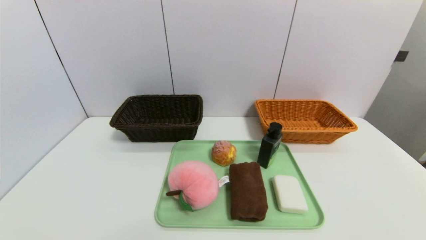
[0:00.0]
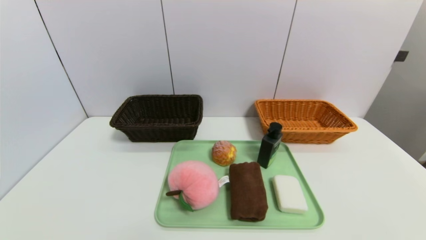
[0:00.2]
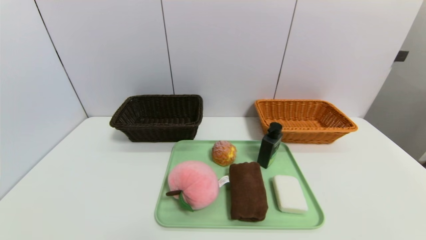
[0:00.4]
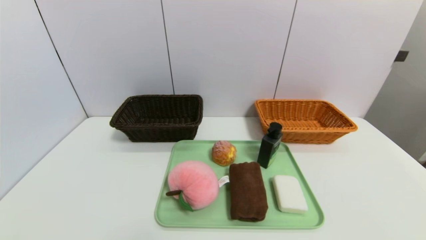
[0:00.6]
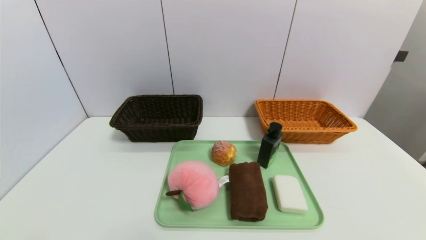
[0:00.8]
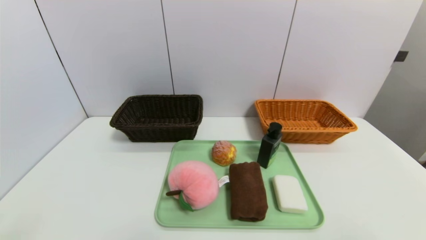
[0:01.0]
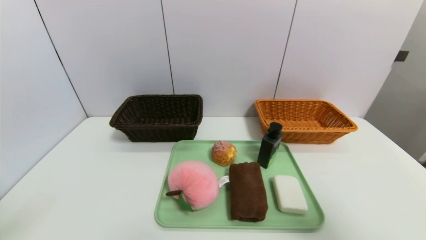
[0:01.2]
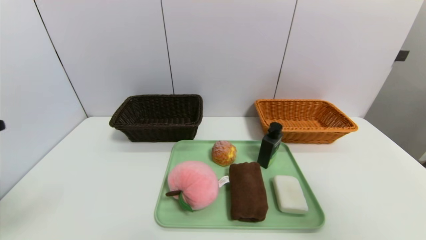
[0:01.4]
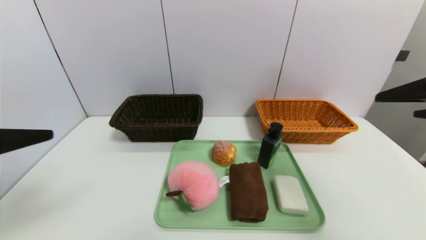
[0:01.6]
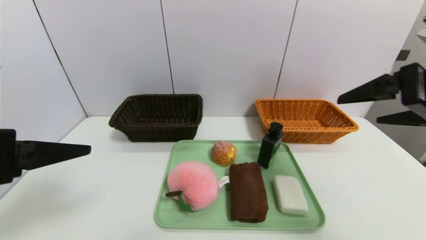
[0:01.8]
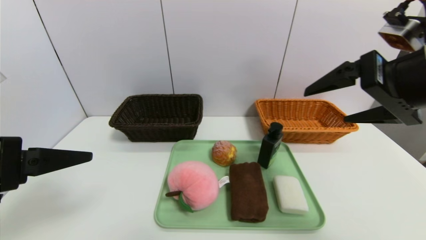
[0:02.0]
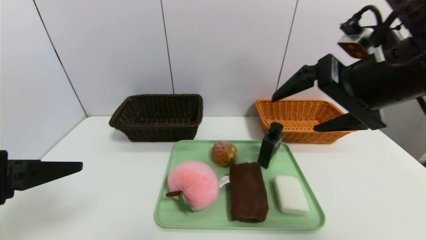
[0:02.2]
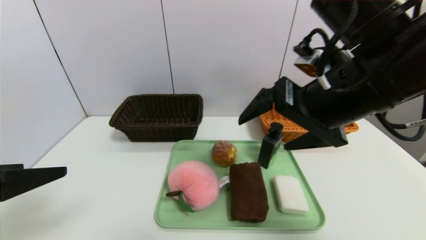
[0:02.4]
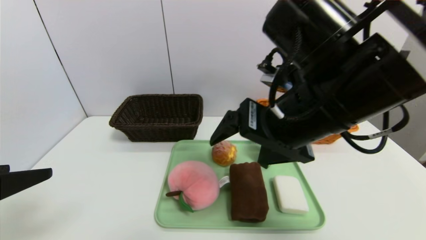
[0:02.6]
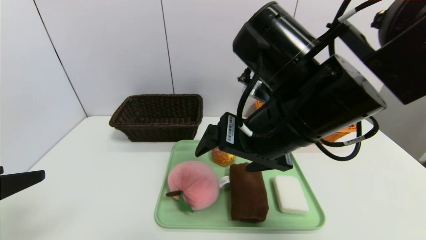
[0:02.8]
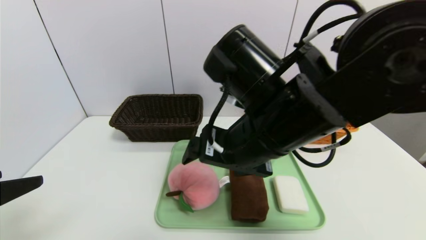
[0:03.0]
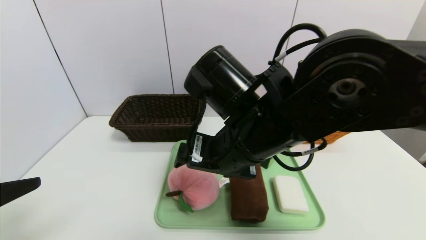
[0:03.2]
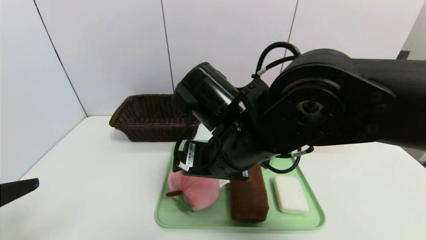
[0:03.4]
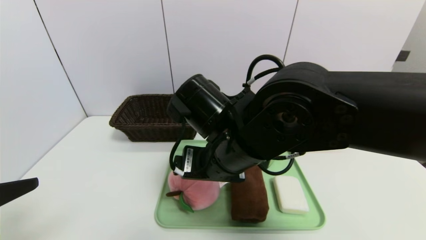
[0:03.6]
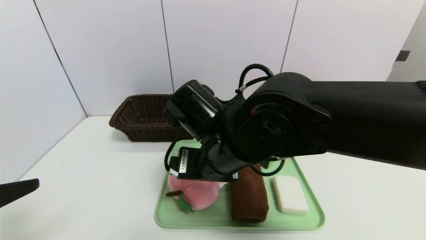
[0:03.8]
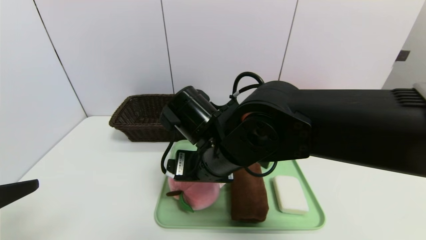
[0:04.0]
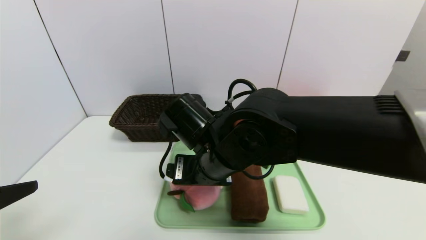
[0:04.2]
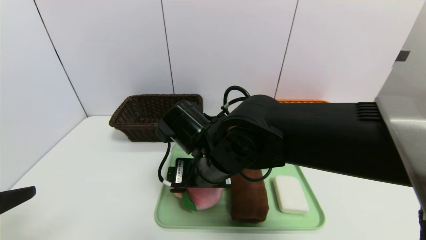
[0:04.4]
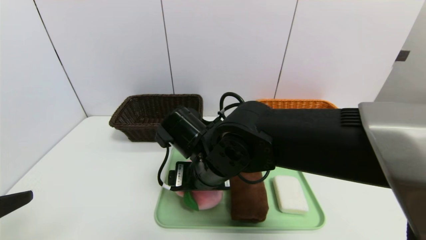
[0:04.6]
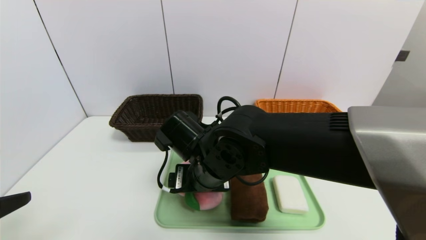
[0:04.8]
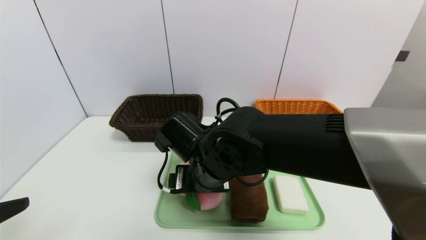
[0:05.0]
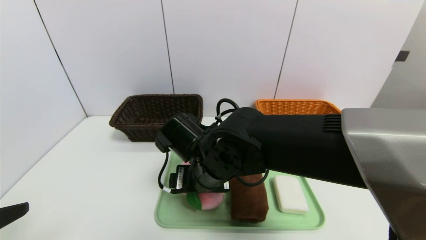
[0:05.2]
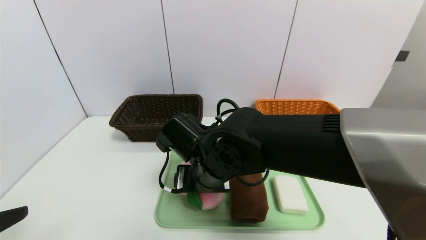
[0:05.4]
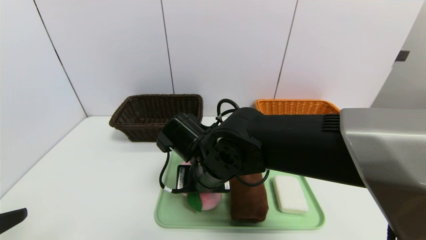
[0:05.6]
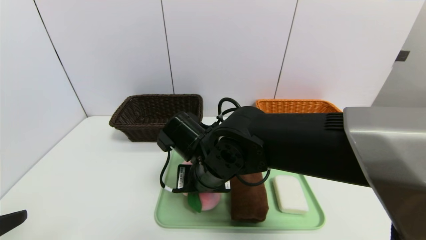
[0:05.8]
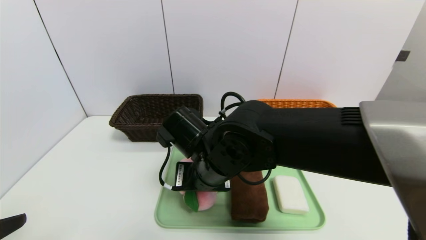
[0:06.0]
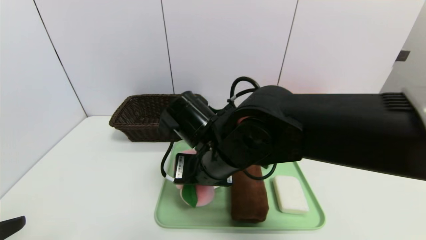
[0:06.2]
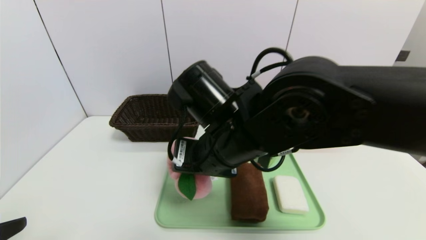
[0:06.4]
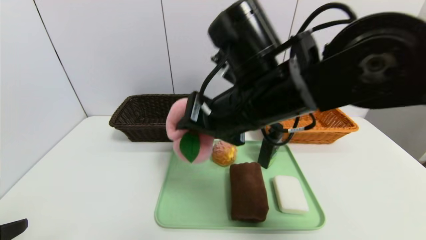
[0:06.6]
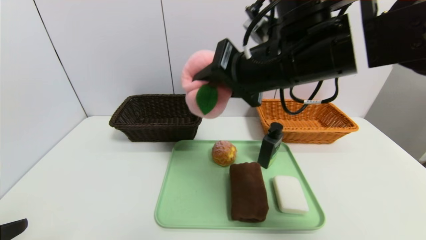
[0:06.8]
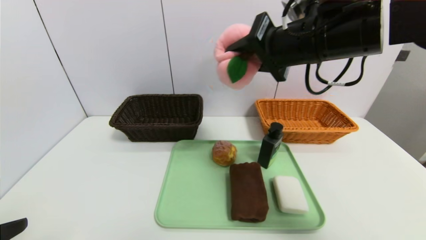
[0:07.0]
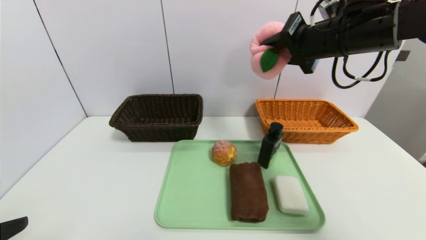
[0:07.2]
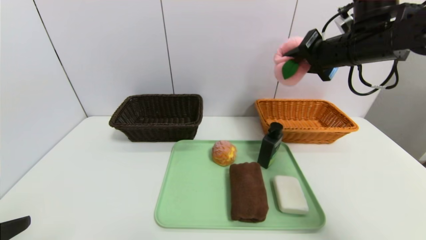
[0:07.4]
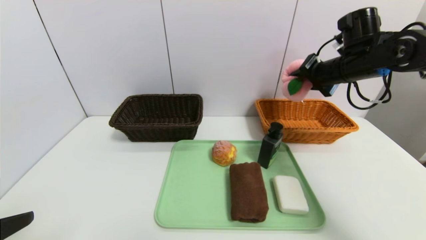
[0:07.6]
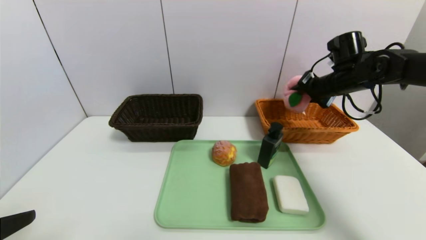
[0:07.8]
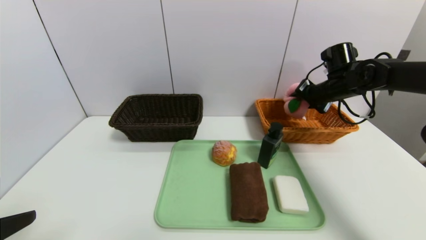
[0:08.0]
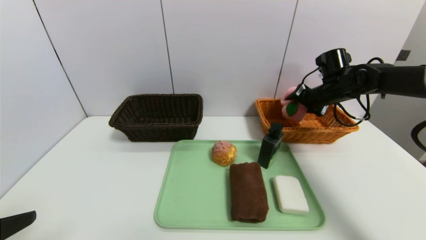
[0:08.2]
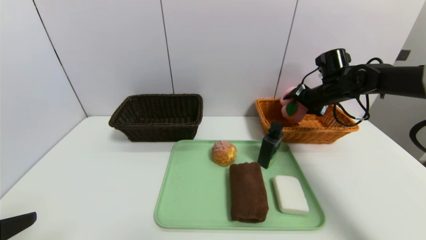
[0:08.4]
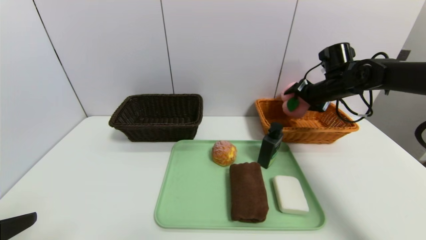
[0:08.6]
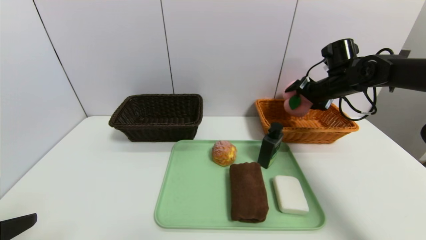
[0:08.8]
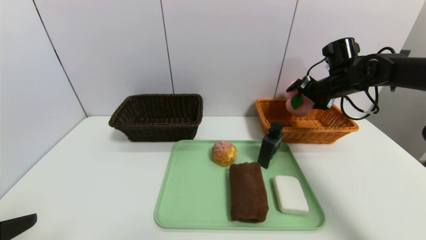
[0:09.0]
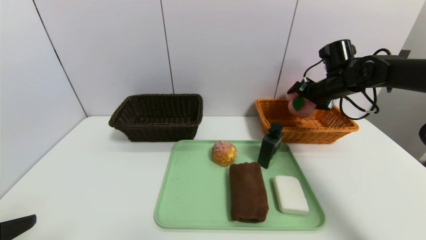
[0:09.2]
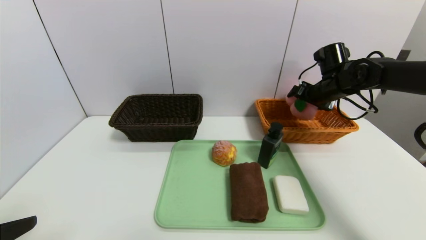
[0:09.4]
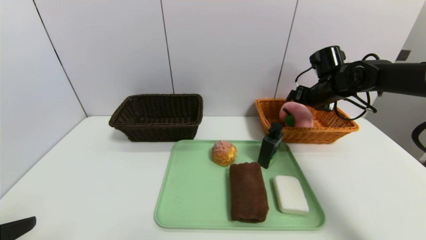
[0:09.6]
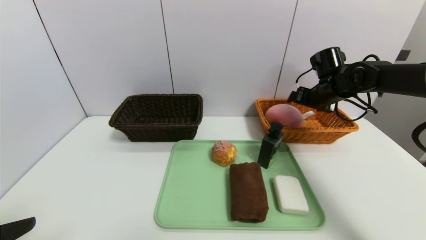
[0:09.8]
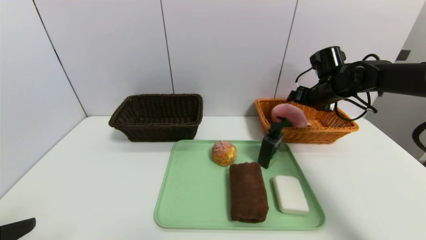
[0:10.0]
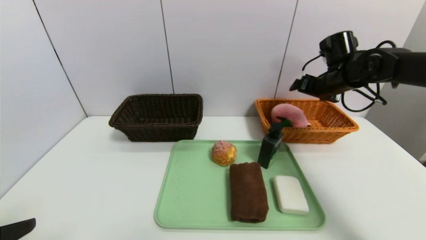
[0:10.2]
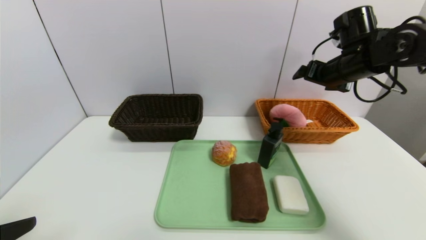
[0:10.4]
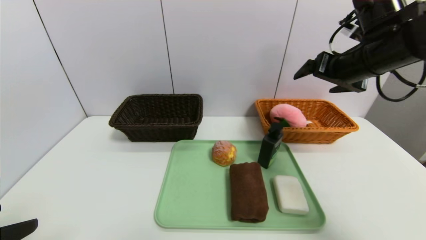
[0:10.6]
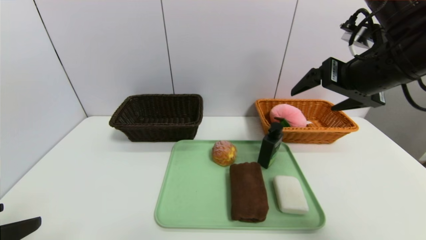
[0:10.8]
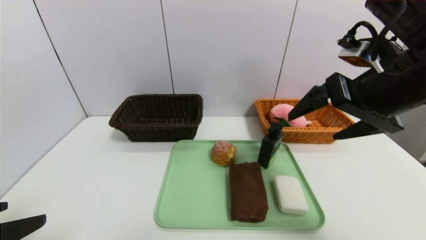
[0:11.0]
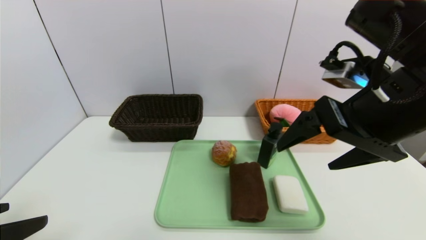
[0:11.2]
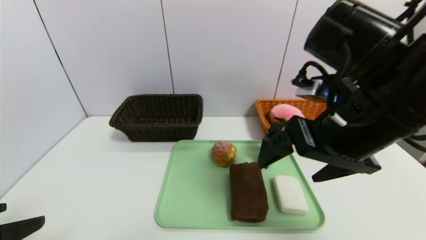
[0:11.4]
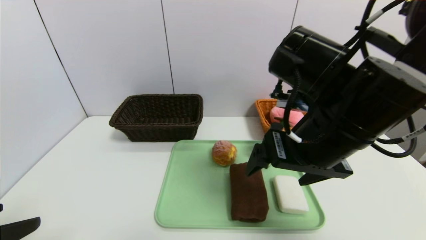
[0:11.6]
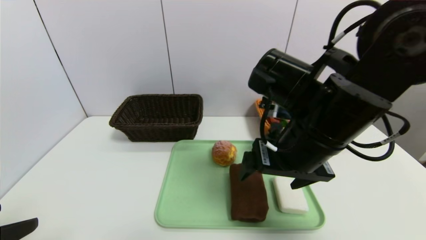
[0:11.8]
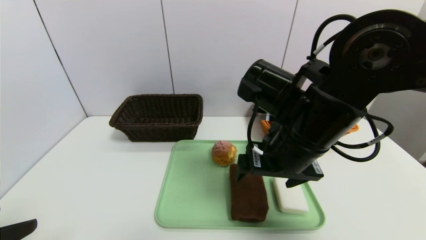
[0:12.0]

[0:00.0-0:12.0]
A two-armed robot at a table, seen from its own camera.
Task of the whole recording: place the food in the right basket with the right gripper, and place the non food items in the left basket with the left gripper.
Step, 0:00.0 to 0:10.2: Grasp the peach doll and put it in the right basket.
0:00.0 to 0:01.6: The two grippers go approximately 30 cm upward and forward.
0:01.6 to 0:03.0: The right gripper shifts some 25 cm to the left, while the left gripper shifts by about 5 cm.
0:03.0 to 0:04.4: The right gripper heads downward and to the left, covering about 10 cm.
0:04.4 to 0:06.0: The right gripper closes its fingers.
0:06.0 to 0:07.6: The right gripper goes approximately 35 cm to the right and forward.
0:07.6 to 0:09.0: The right gripper moves some 5 cm, and opens up.
0:09.0 to 0:10.4: The right gripper shifts roughly 10 cm upward and backward.
0:10.4 to 0:12.0: The right gripper travels to the left and backward by roughly 20 cm.

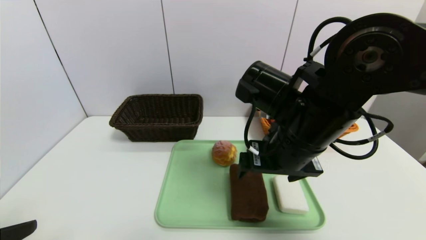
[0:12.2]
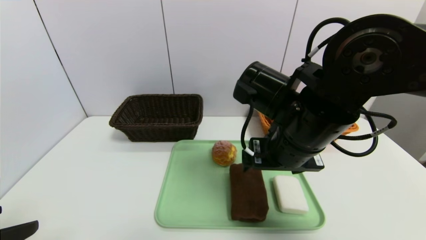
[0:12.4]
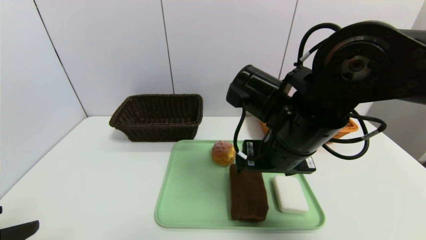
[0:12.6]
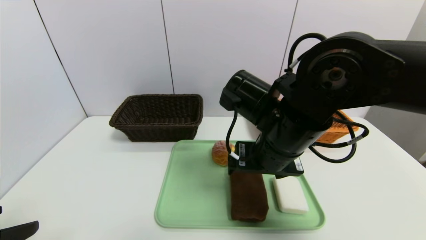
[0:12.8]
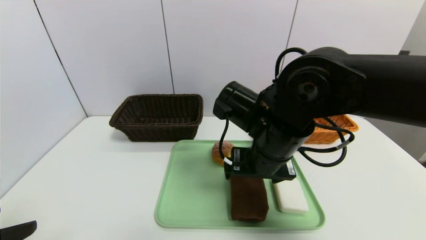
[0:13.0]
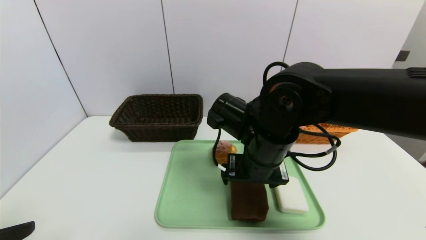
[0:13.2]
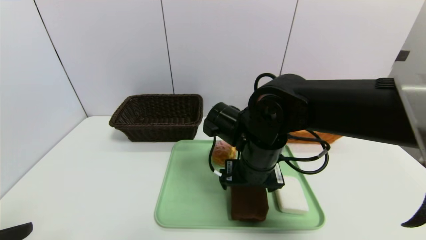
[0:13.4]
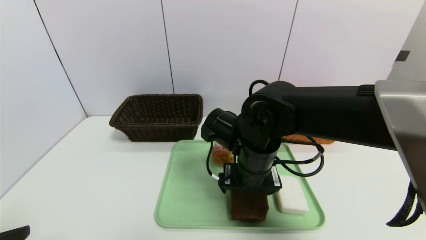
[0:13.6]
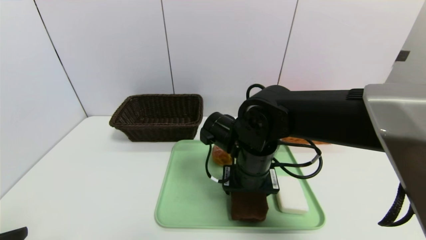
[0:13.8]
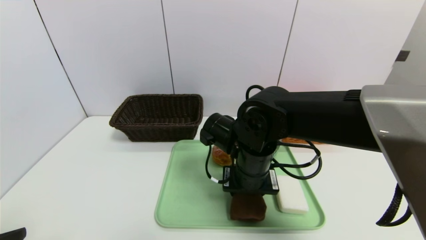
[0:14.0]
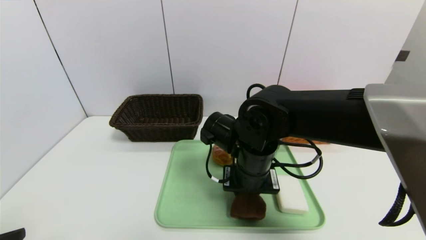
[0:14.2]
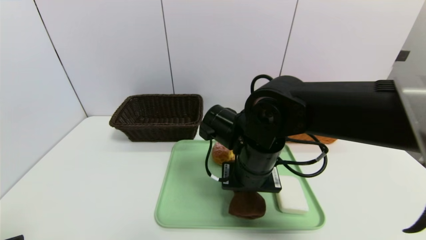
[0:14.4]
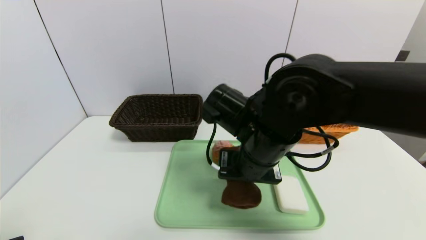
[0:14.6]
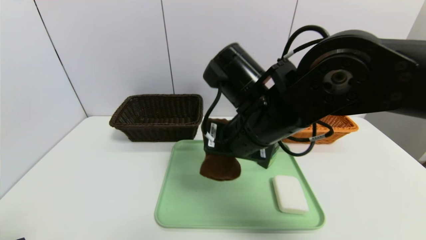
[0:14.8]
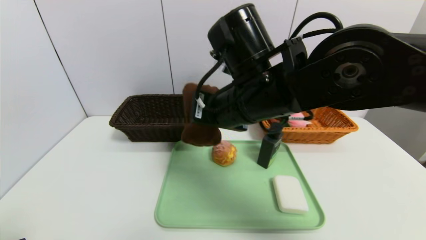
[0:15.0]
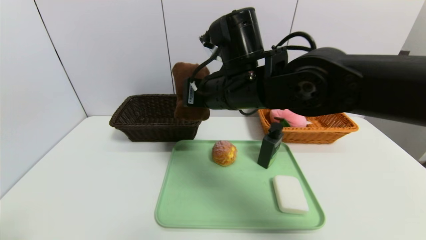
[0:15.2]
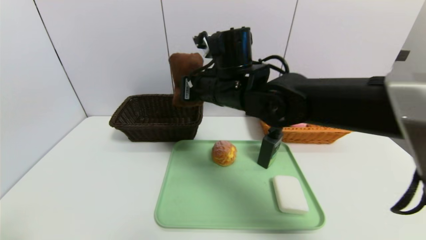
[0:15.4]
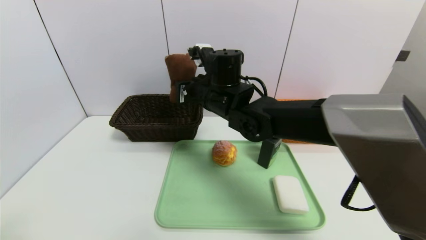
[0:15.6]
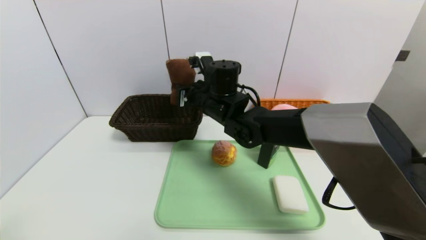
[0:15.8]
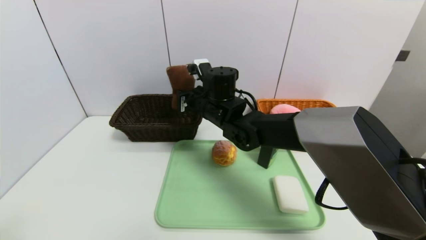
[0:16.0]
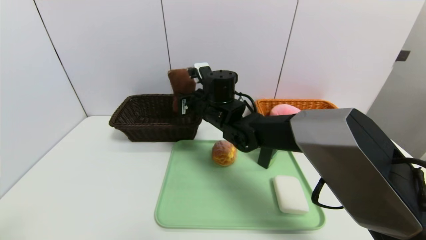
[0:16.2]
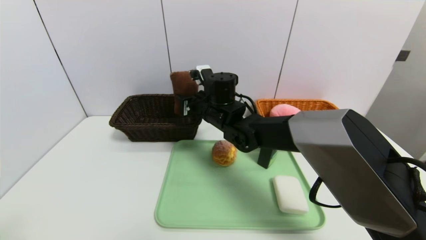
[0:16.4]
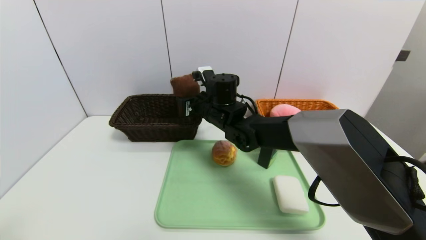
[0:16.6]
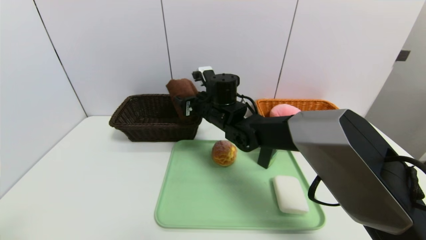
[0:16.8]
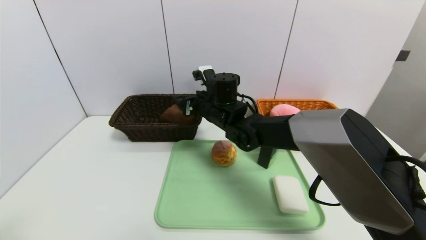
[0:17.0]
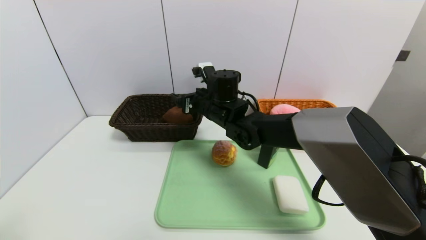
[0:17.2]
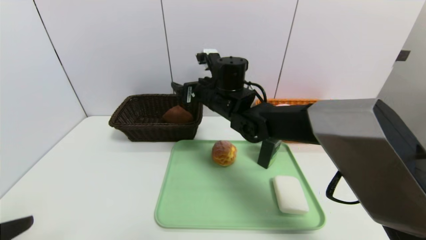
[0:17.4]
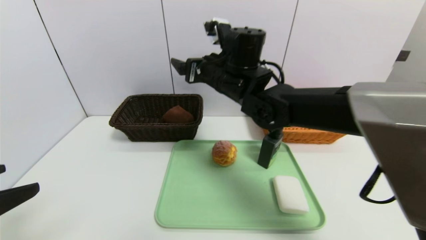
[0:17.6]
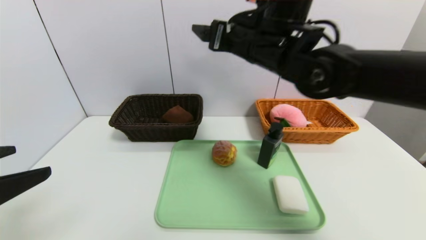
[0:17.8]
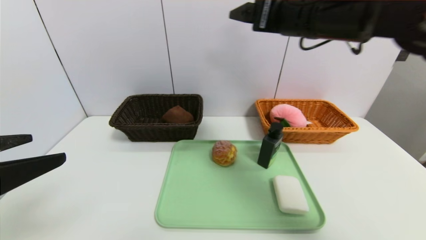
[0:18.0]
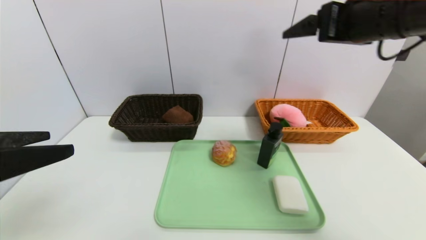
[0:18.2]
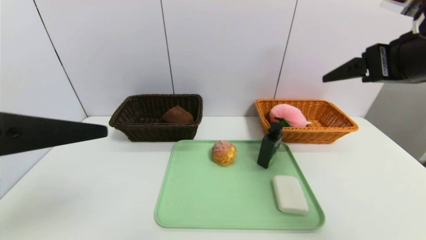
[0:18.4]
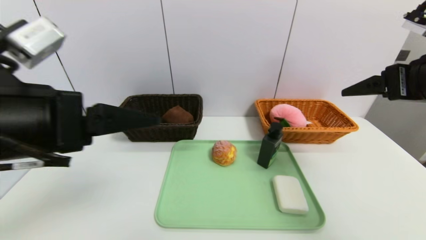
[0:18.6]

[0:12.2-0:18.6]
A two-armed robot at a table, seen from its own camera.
Task of the whole recording: place the food in the right basket with the right gripper, and place the non food items in the left basket with the left gripper.
0:12.2 to 0:13.8: The right gripper goes approximately 10 cm downward and to the left.
0:13.8 to 0:15.4: The right gripper heads upward and forward, covering approximately 10 cm, and closes up.
0:15.4 to 0:17.0: The right gripper is displaced downward and forward by about 10 cm, and opens up.
0:17.0 to 0:18.6: The left gripper moves forward, to the right and upward, some 20 cm; the right gripper heads to the right, backward and upward, covering roughly 40 cm.
